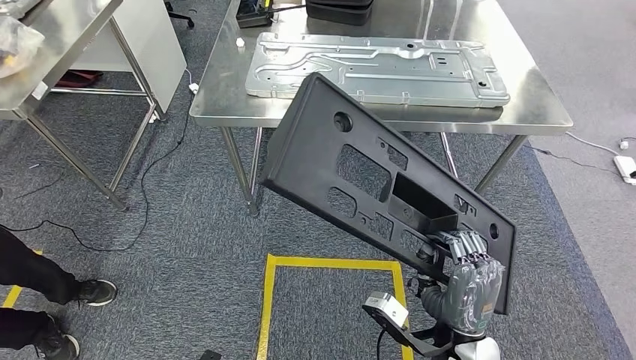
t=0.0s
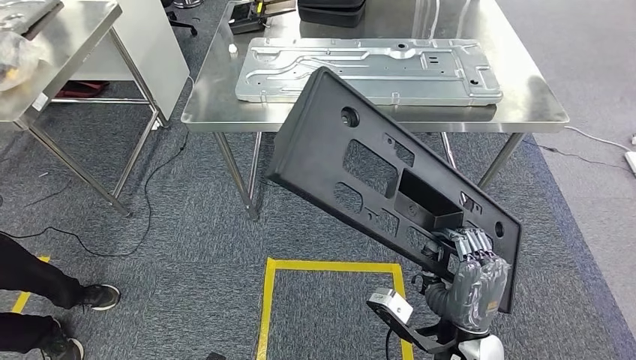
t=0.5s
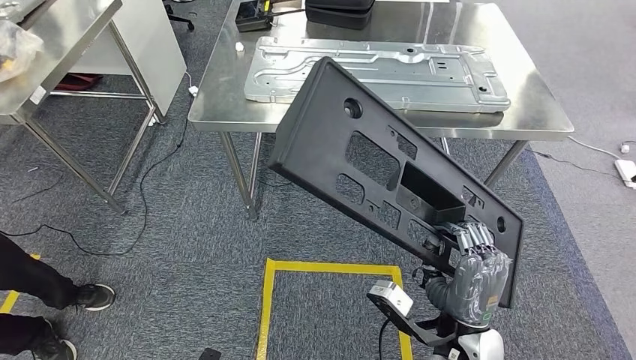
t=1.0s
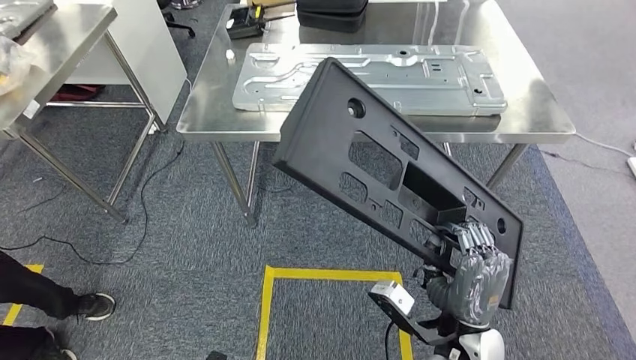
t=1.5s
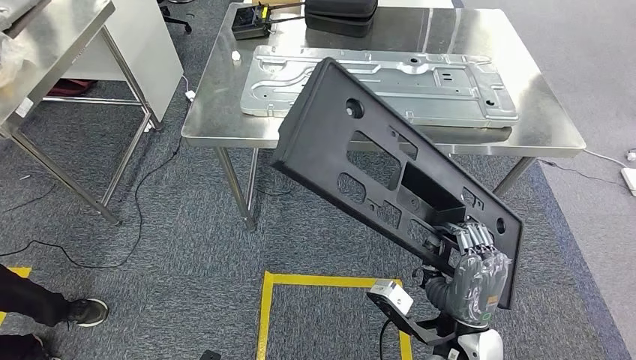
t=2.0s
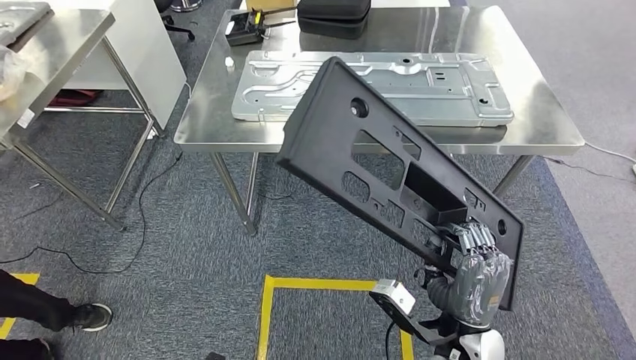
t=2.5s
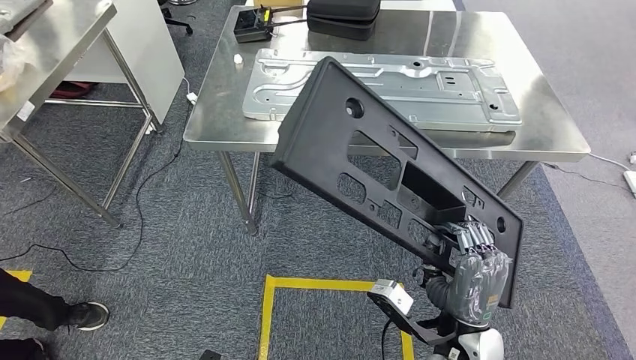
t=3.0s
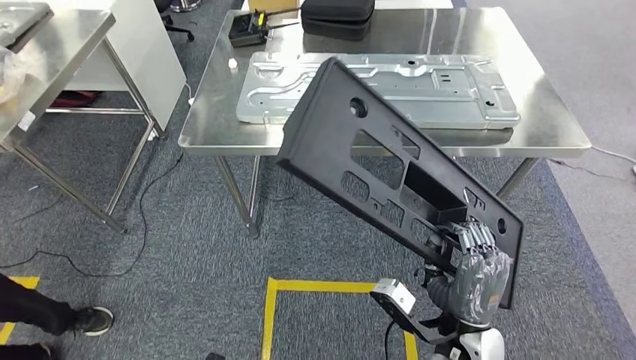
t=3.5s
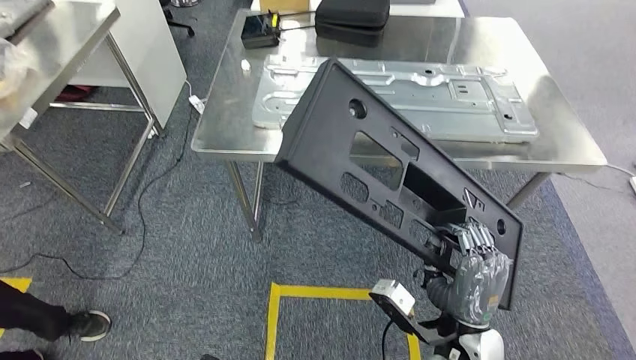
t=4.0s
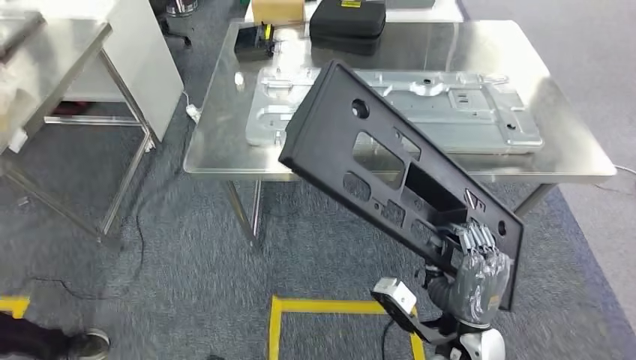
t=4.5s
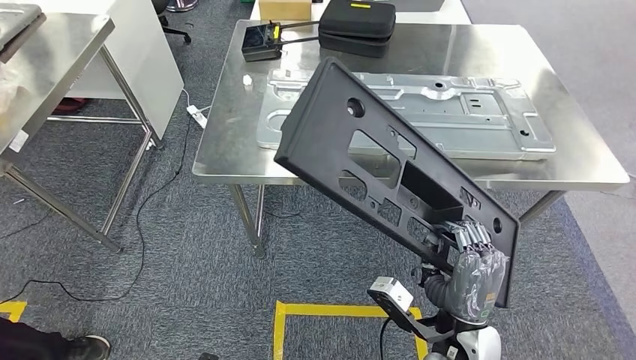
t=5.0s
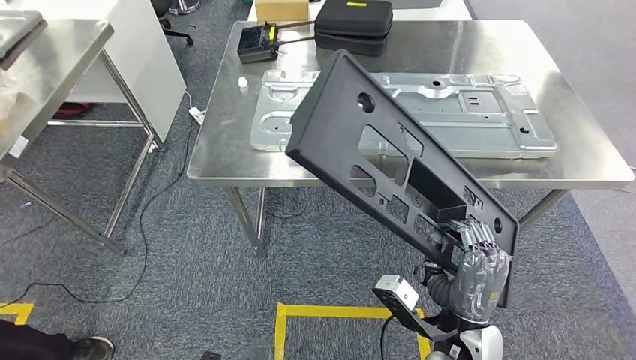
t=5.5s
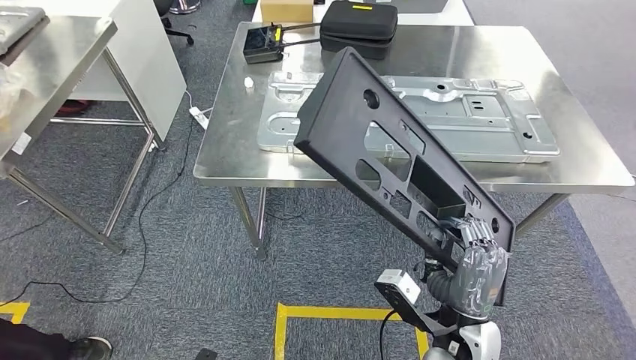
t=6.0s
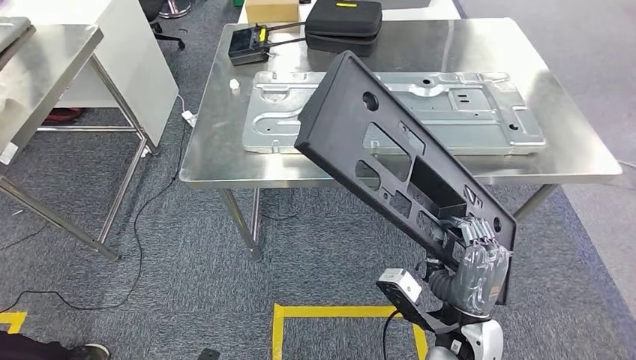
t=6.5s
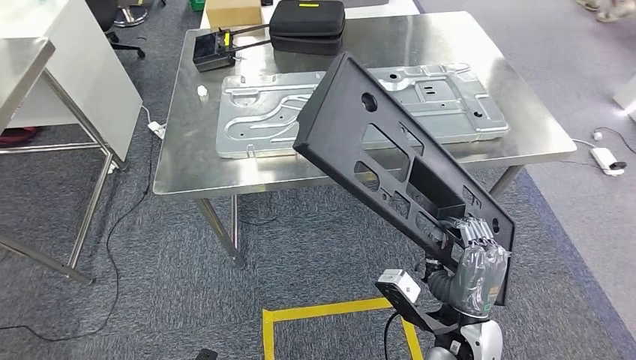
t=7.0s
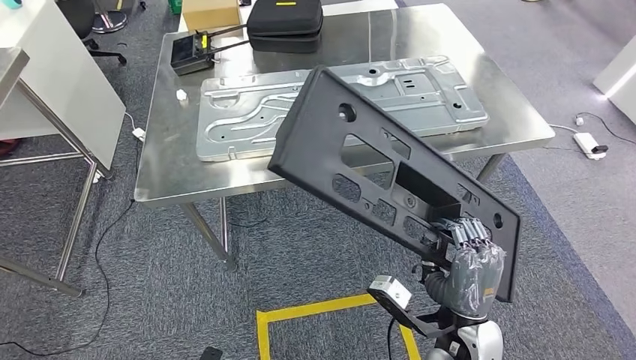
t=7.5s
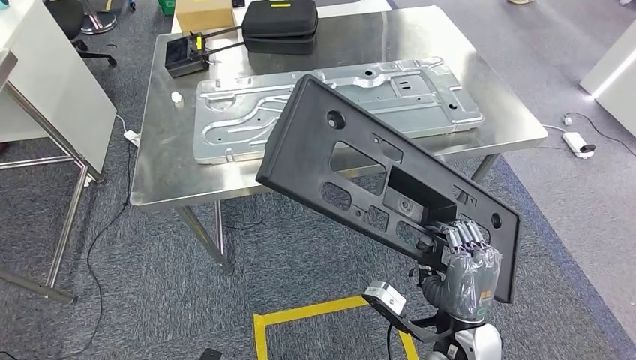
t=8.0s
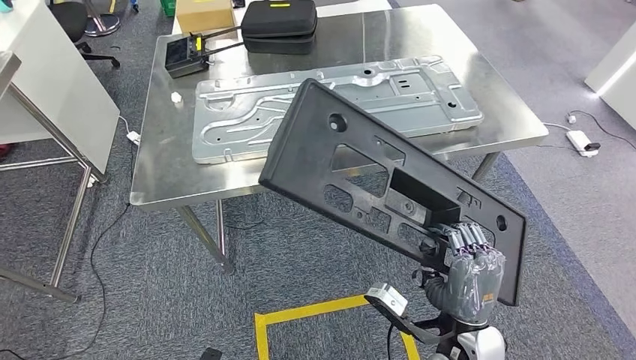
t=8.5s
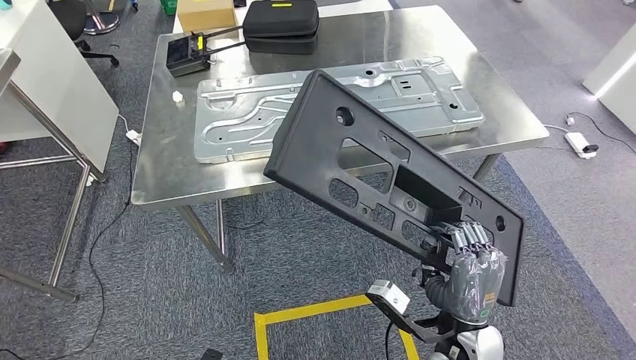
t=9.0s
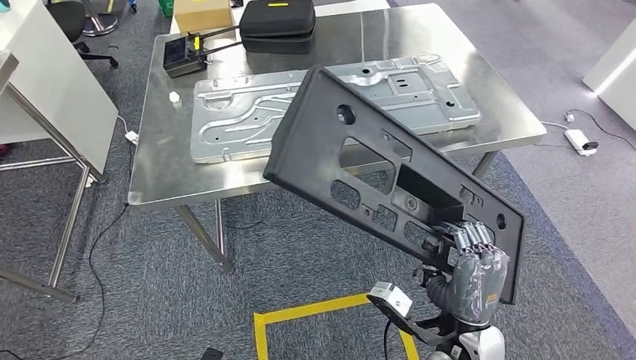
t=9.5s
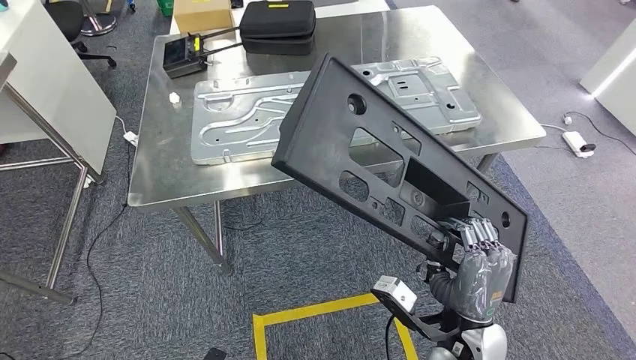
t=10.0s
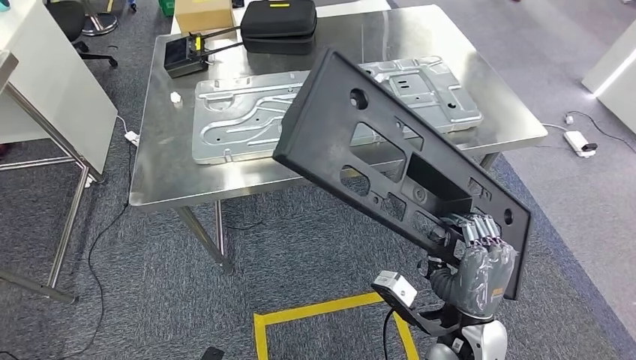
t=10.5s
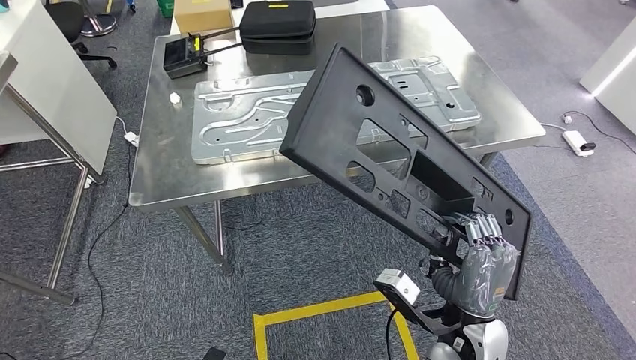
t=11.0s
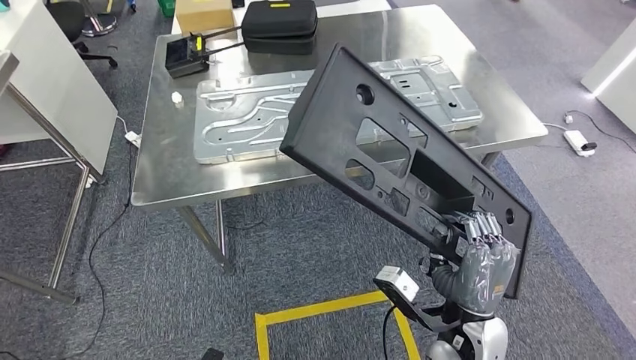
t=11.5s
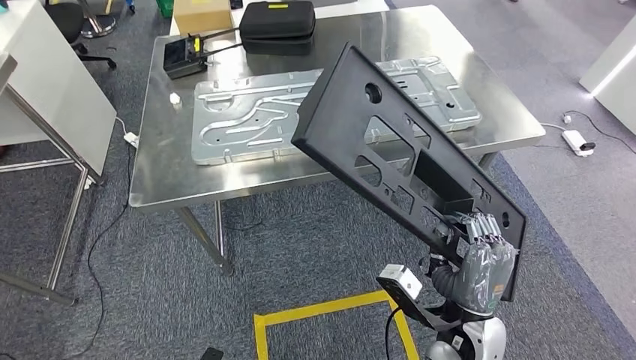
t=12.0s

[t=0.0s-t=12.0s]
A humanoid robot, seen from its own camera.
t=8.0s to t=10.0s: Both hands stay about where they are.
t=10.0s to t=12.0s: Both hands stay about where they are.

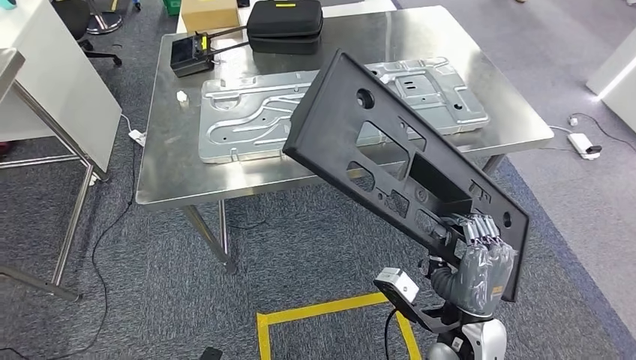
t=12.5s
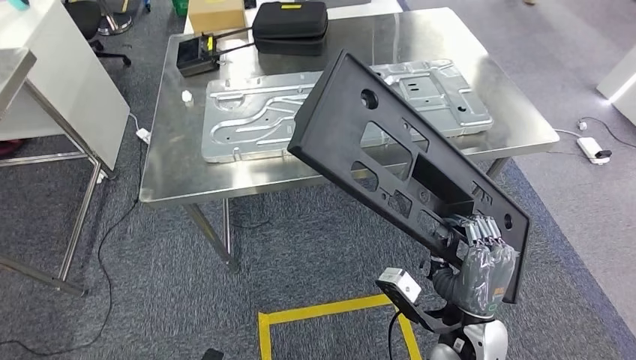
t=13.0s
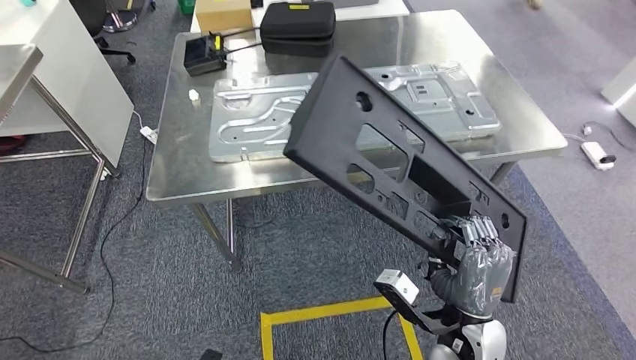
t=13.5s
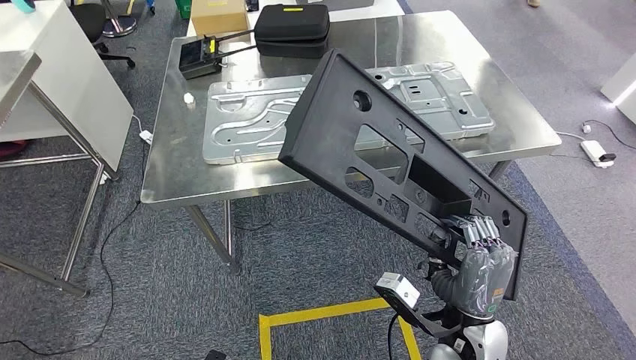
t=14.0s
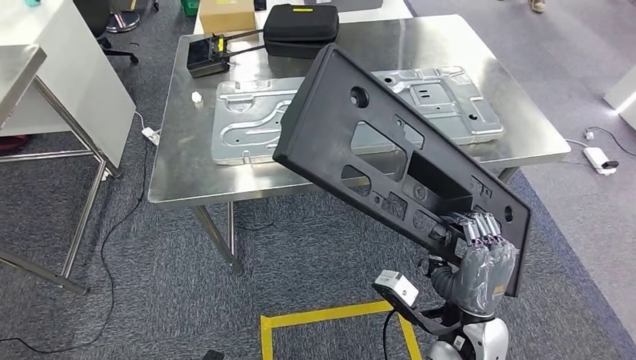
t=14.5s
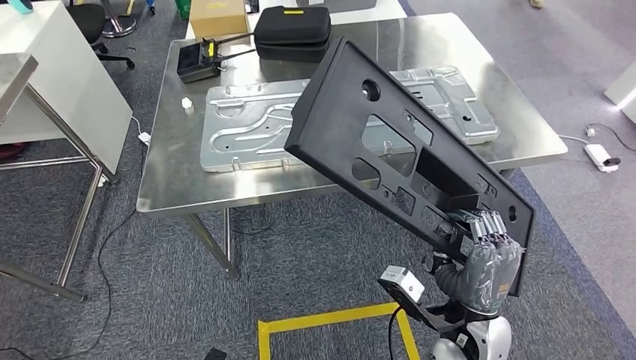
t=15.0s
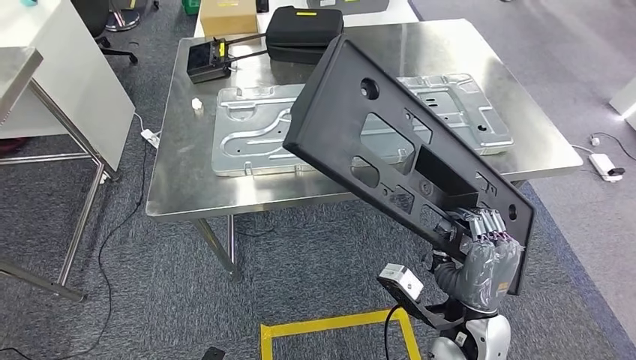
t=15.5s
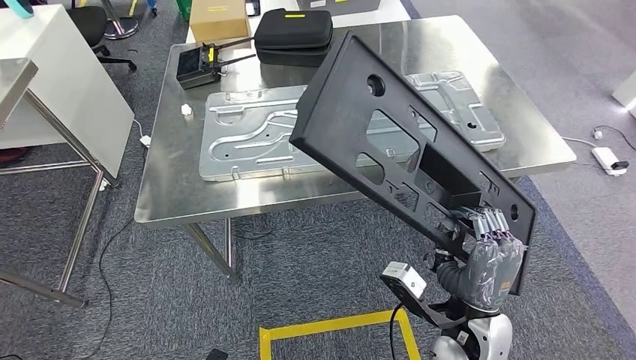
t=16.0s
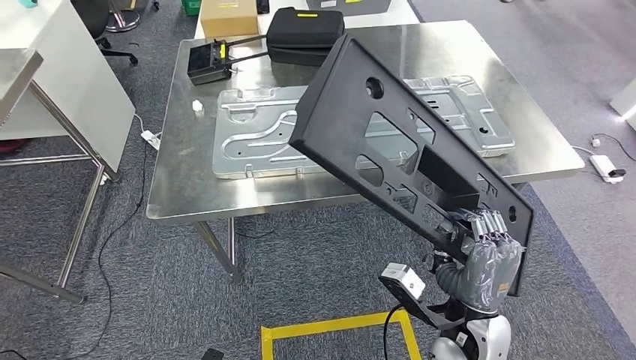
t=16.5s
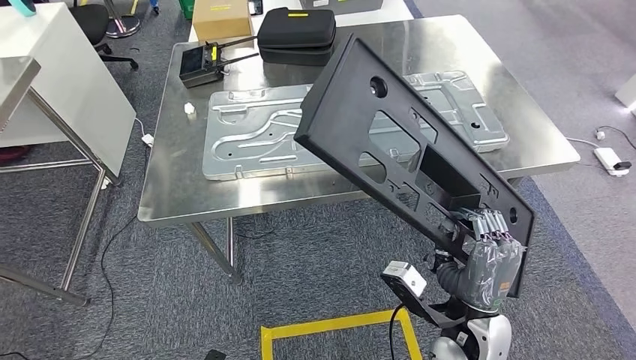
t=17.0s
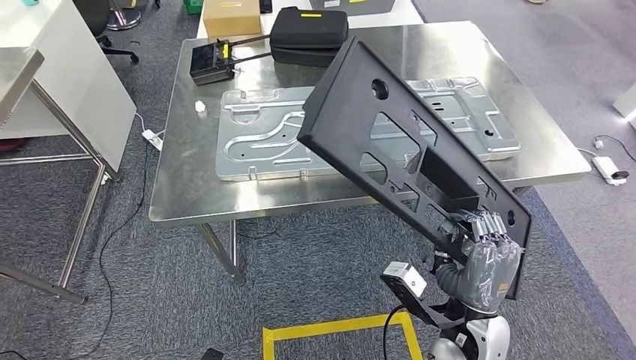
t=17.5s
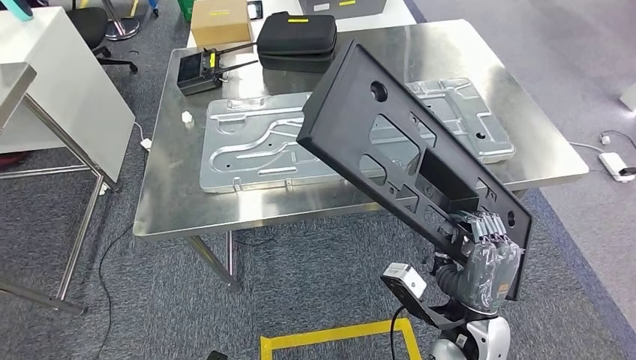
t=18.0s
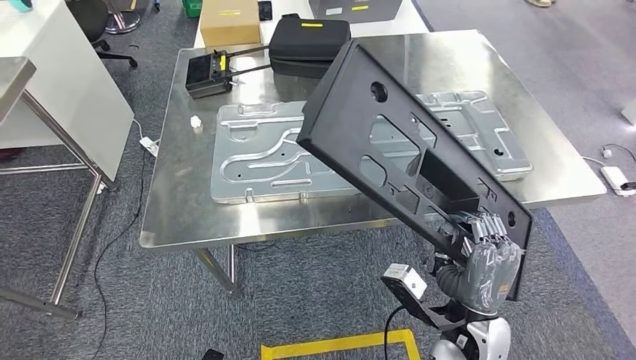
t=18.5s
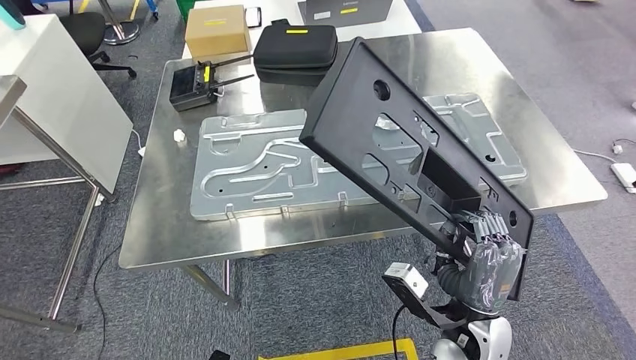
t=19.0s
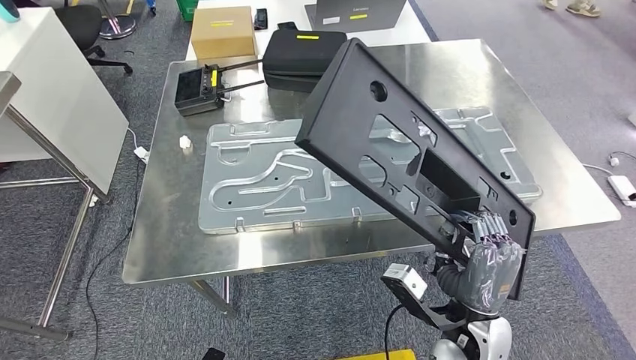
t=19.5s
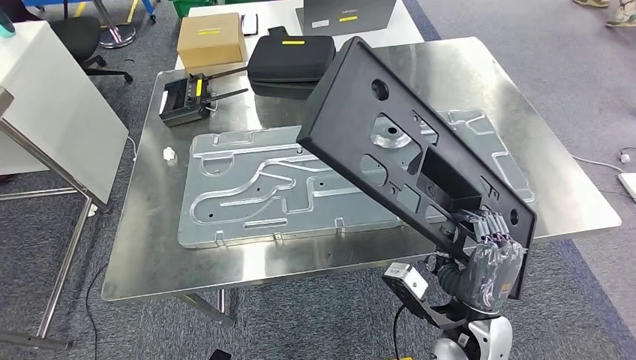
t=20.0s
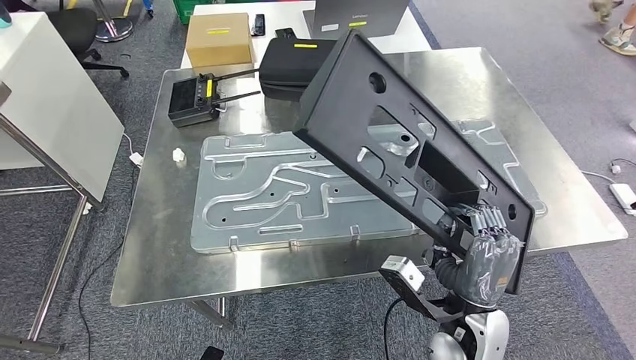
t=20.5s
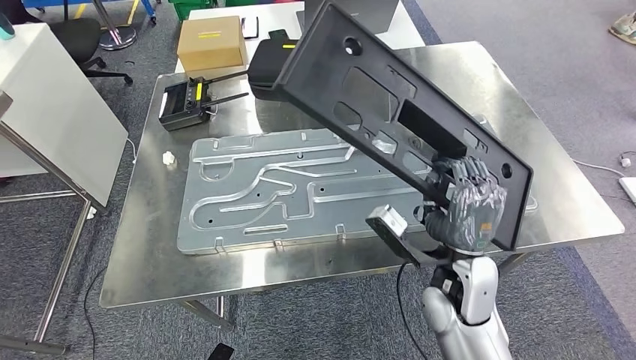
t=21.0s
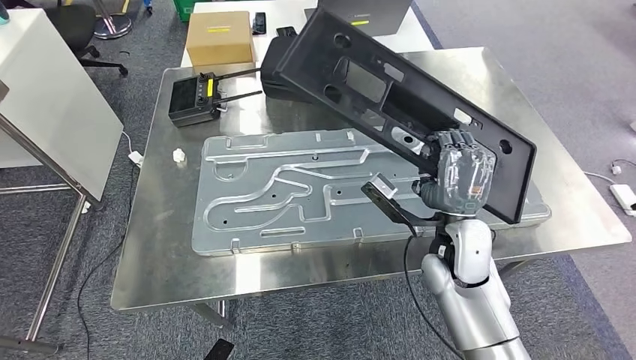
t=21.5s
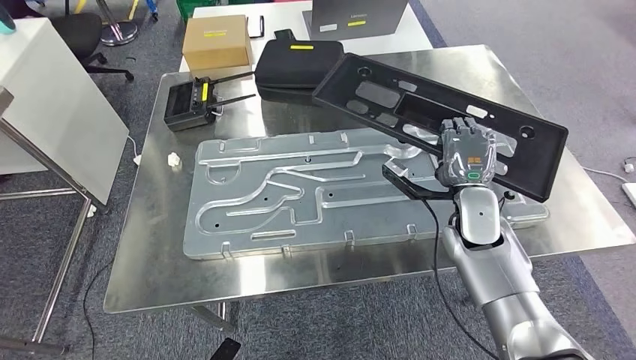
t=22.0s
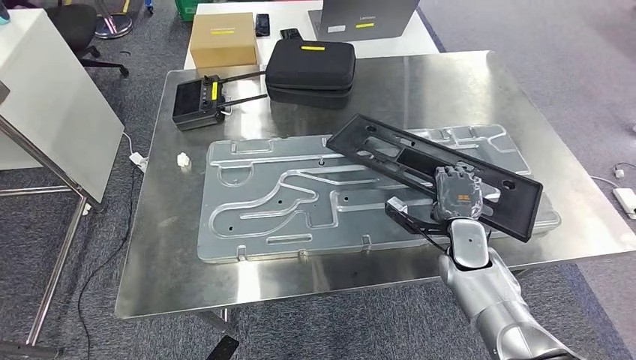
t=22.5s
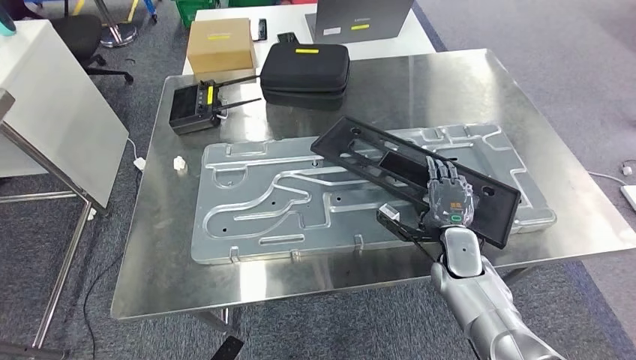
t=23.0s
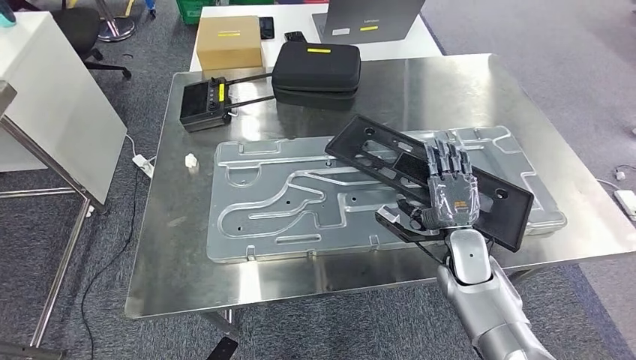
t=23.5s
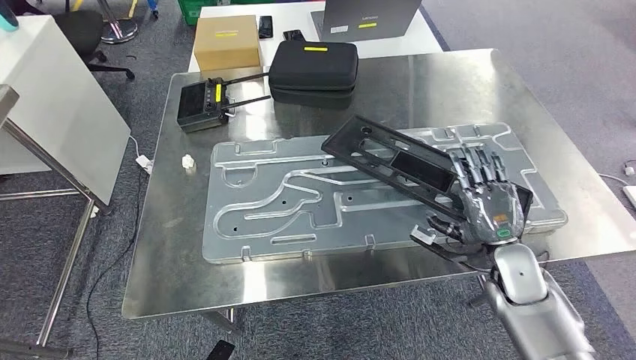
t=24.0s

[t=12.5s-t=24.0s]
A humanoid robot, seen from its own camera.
Step, t=12.5s to t=23.0s: Insert the large material into the corresponding slot on the workbench.
